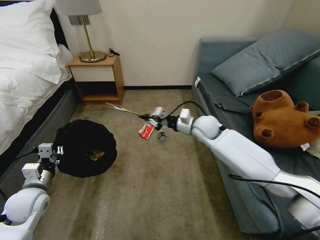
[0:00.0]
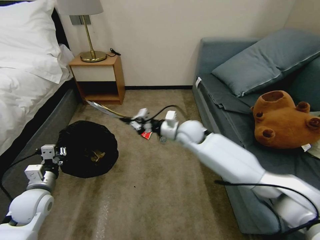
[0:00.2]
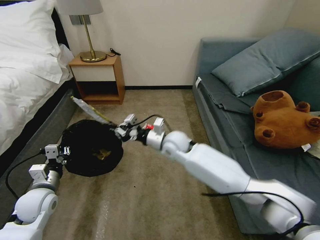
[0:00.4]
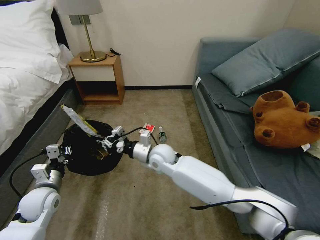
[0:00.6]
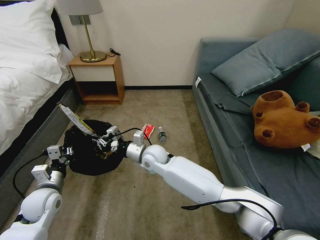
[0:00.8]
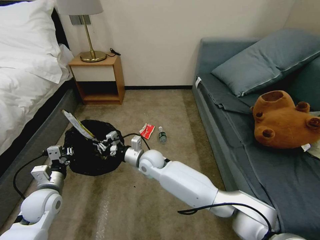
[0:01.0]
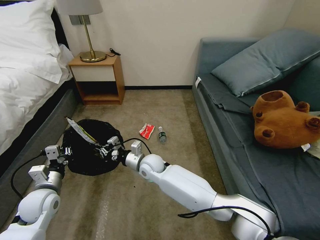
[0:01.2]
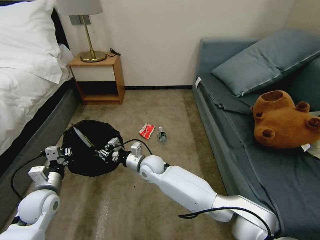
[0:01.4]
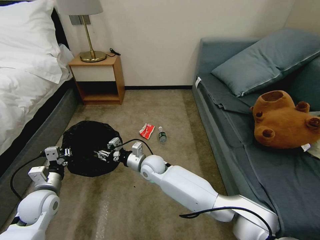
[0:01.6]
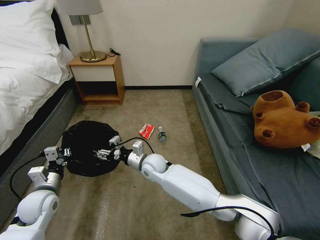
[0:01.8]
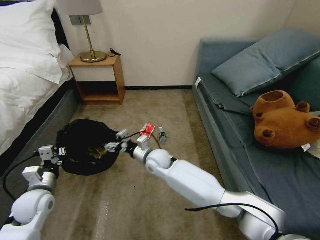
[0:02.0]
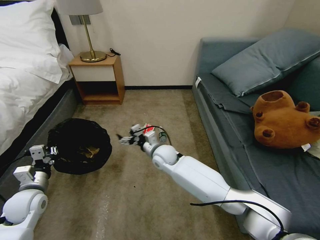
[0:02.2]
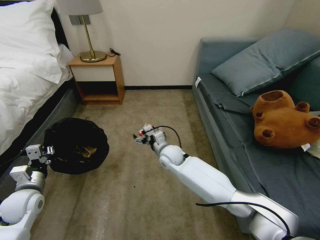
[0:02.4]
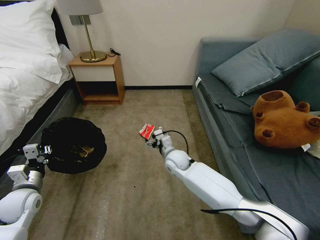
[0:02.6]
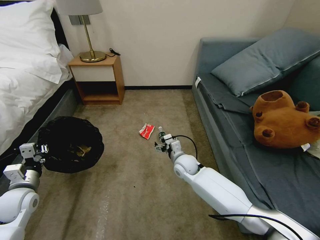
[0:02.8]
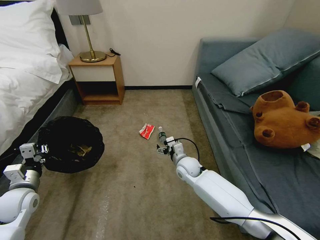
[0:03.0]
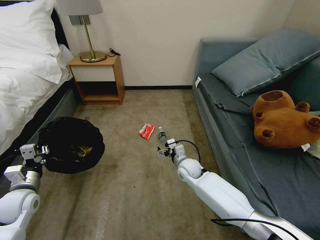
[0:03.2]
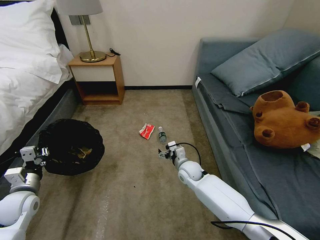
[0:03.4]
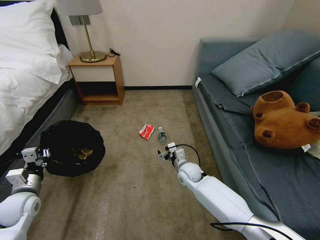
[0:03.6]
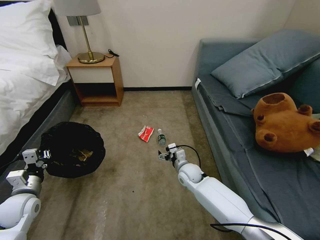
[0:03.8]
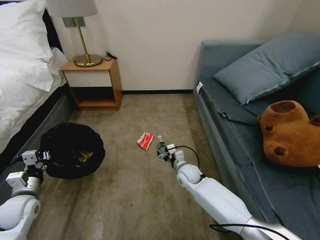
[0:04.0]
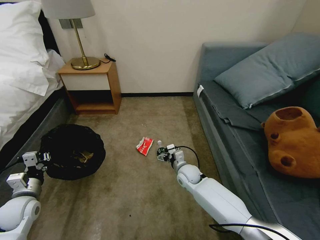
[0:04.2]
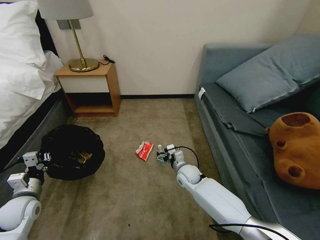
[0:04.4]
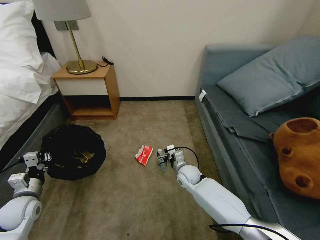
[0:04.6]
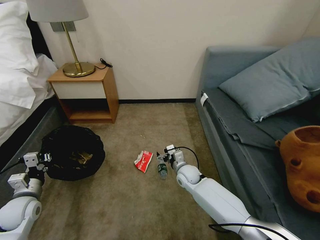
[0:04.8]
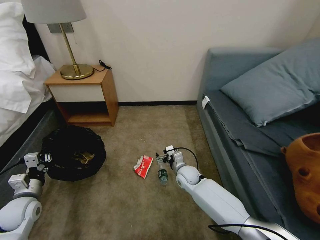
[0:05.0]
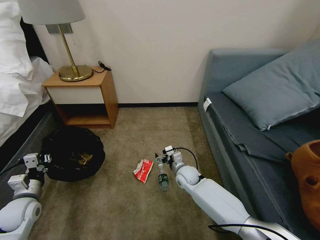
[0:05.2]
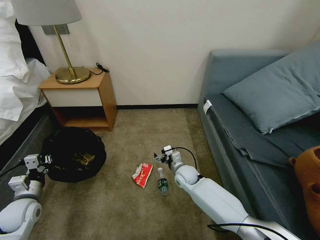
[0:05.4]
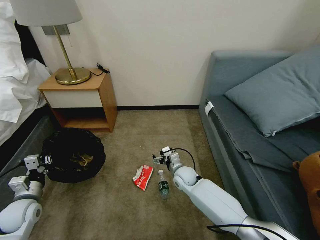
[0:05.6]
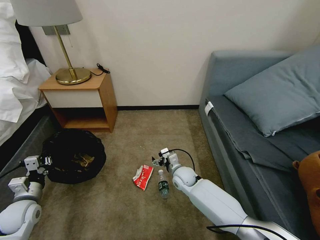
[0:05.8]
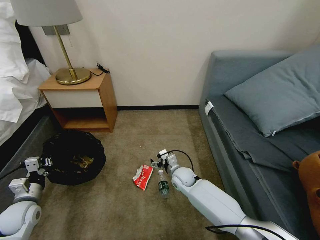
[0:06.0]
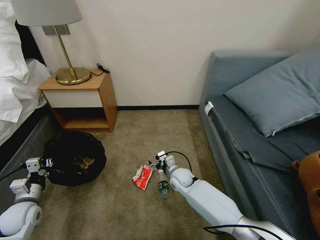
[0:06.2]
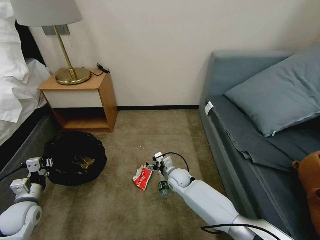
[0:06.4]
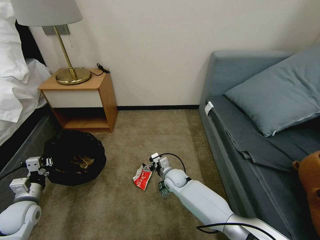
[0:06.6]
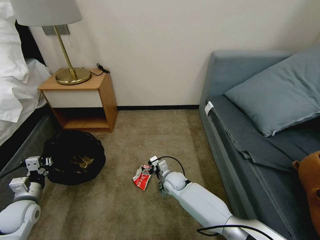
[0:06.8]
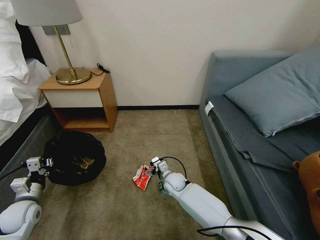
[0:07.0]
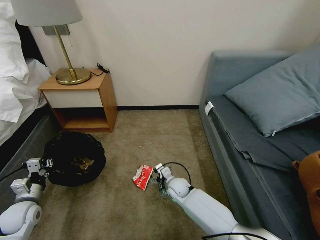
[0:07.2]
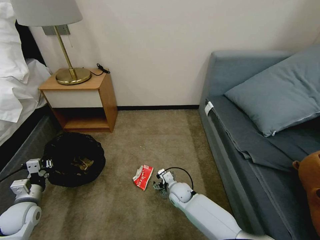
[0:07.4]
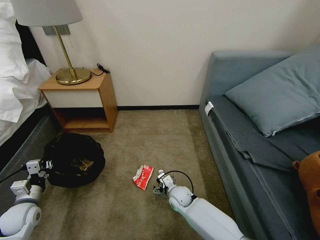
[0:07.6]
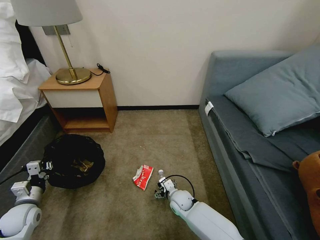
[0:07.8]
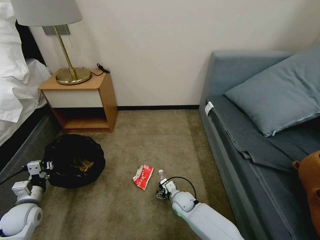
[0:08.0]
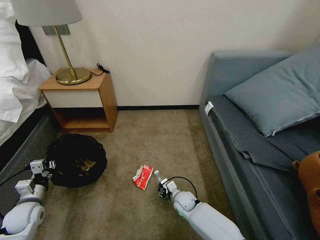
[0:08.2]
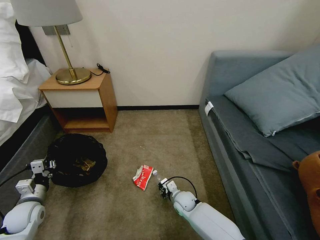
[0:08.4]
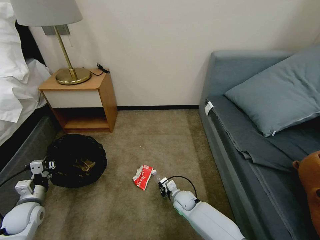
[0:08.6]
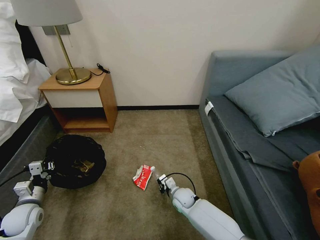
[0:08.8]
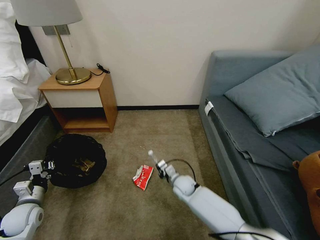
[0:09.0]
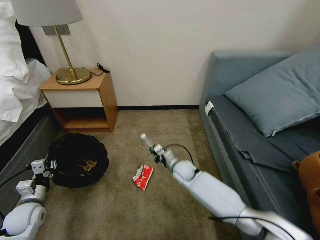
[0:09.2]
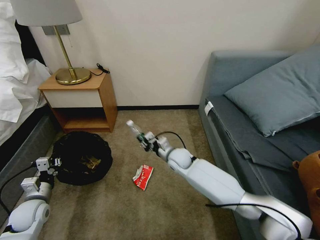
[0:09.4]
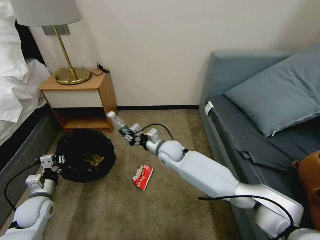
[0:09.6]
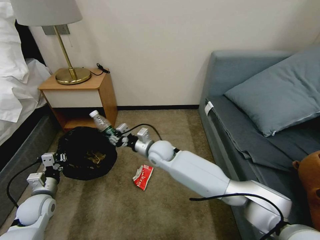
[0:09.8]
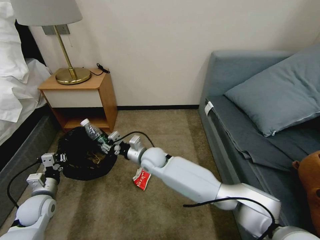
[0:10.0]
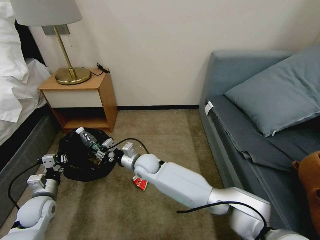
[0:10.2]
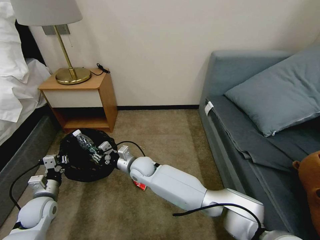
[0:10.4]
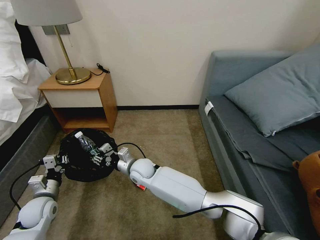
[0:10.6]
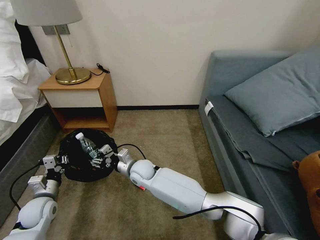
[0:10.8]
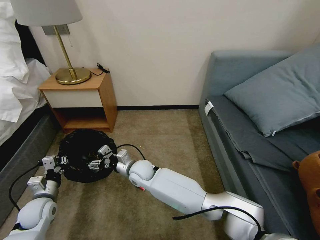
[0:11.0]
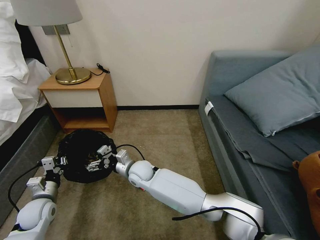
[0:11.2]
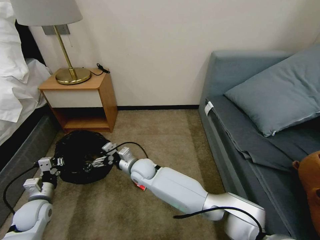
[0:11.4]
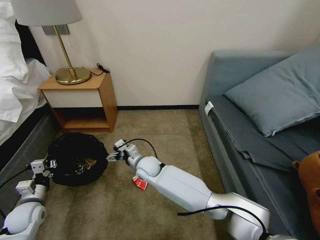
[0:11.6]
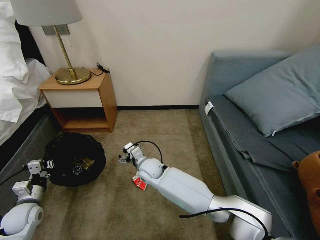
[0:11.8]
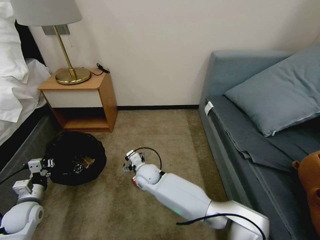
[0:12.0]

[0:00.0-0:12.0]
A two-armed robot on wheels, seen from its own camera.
Task of the whole recording: Pick up the trash bin, then pick up the garbage on the floor and place it into the trash bin.
0:00.0 to 0:01.6: The right gripper heads to the left, downward and backward, covering about 25 cm.
0:01.6 to 0:03.0: The right gripper shifts some 15 cm to the right, and opens its fingers; the left gripper goes about 5 cm to the left.
0:06.0 to 0:07.6: The right gripper shifts about 10 cm backward and downward.
0:07.6 to 0:09.0: The right gripper closes up.
0:09.0 to 0:10.4: The right gripper is displaced to the left and upward by some 20 cm.
0:10.4 to 0:12.0: The right gripper opens up.

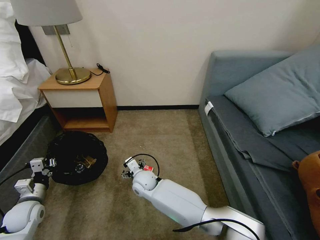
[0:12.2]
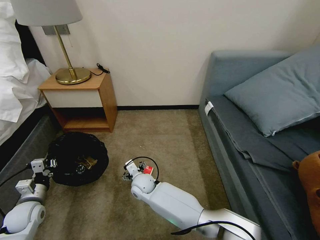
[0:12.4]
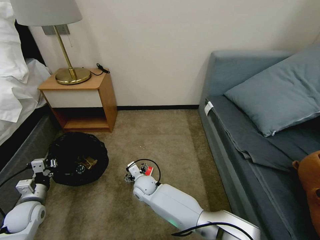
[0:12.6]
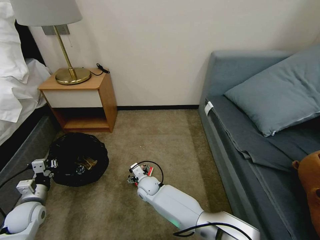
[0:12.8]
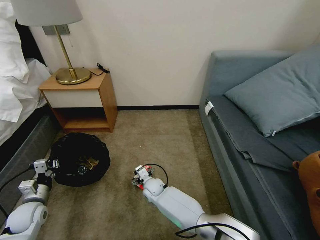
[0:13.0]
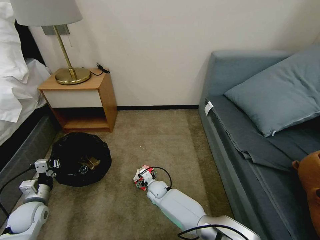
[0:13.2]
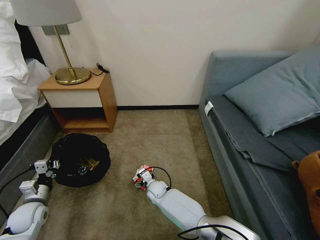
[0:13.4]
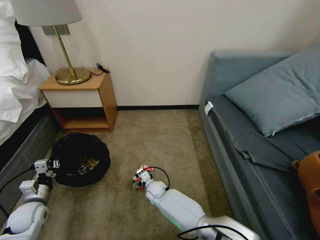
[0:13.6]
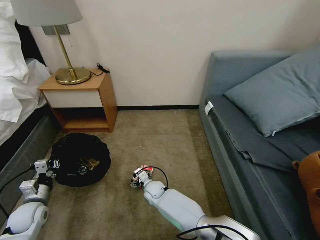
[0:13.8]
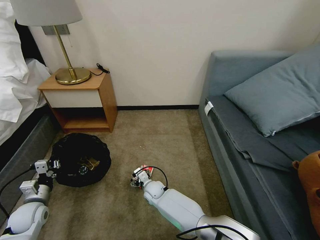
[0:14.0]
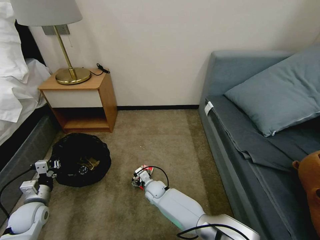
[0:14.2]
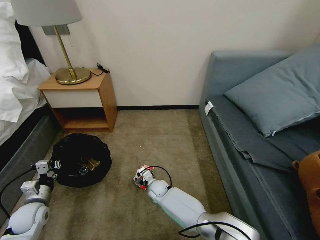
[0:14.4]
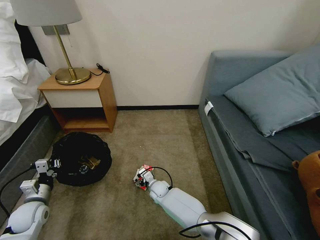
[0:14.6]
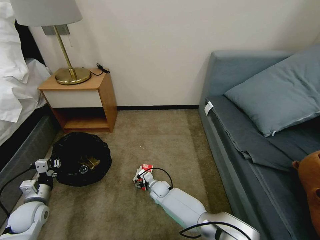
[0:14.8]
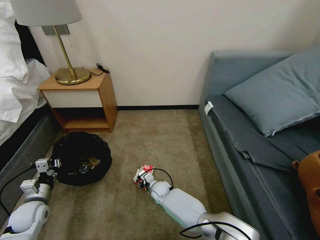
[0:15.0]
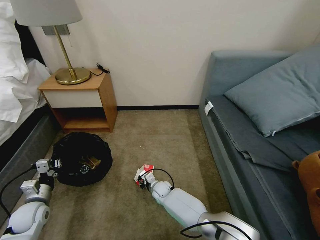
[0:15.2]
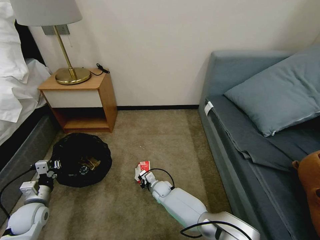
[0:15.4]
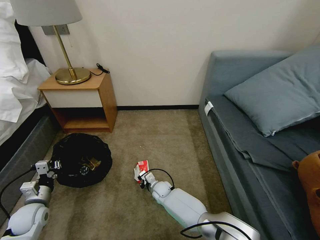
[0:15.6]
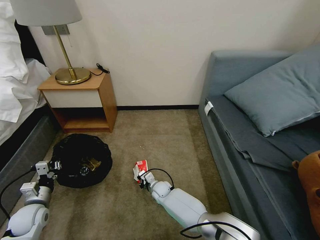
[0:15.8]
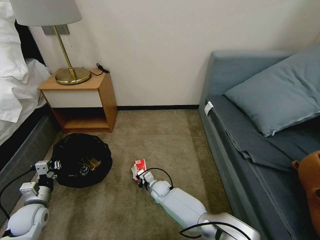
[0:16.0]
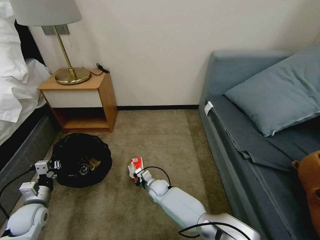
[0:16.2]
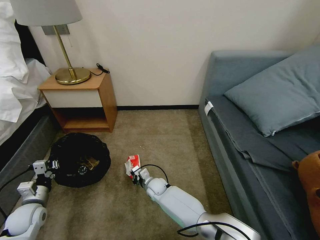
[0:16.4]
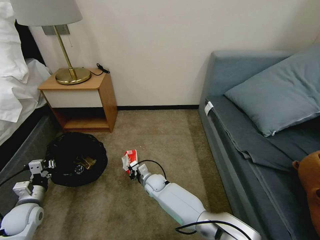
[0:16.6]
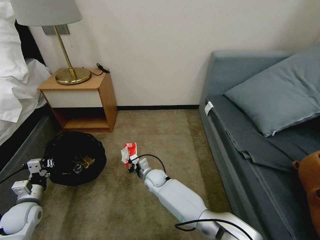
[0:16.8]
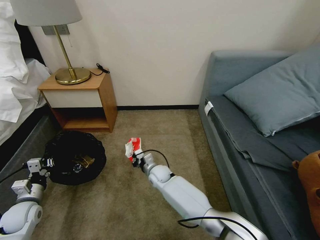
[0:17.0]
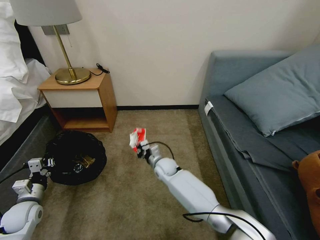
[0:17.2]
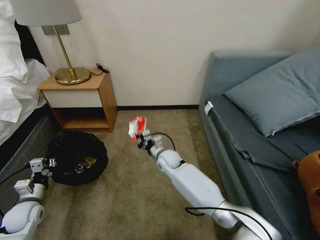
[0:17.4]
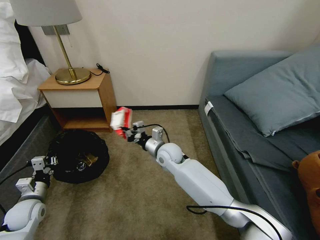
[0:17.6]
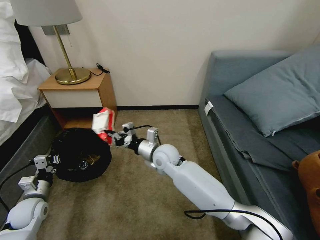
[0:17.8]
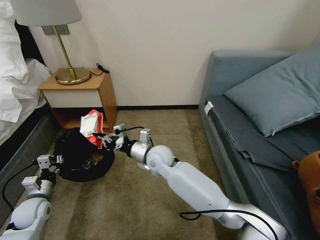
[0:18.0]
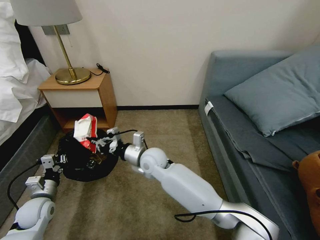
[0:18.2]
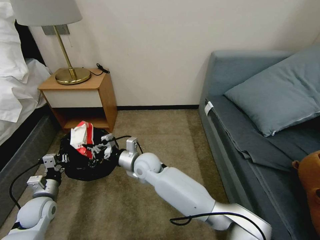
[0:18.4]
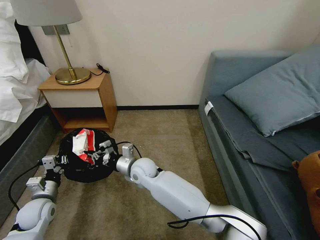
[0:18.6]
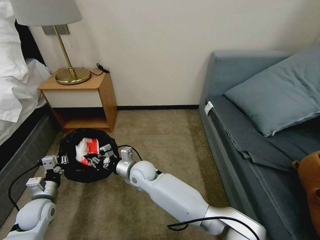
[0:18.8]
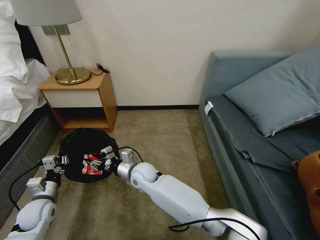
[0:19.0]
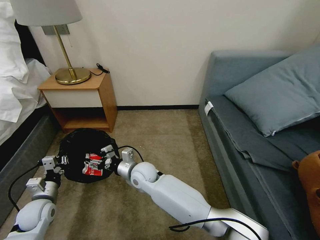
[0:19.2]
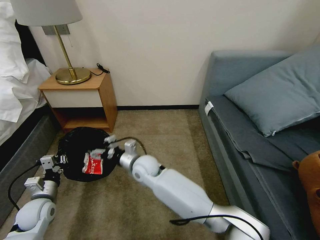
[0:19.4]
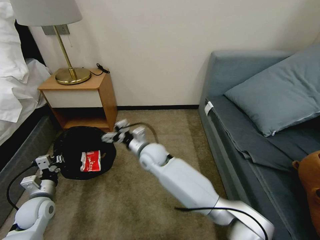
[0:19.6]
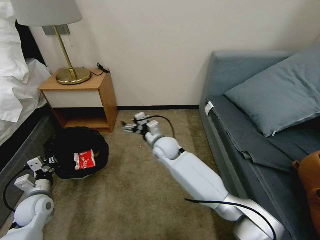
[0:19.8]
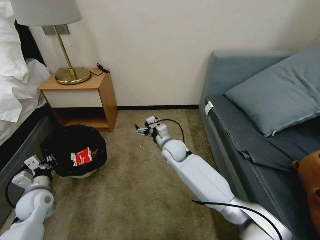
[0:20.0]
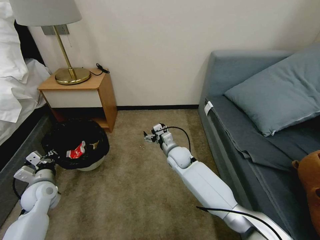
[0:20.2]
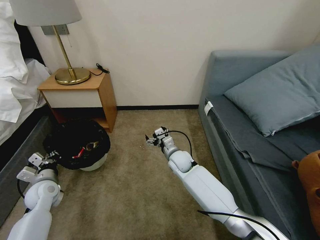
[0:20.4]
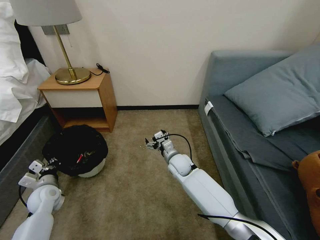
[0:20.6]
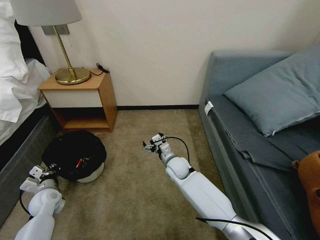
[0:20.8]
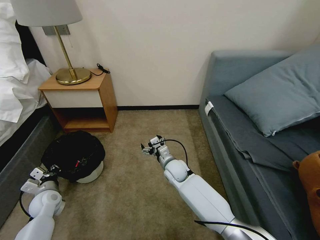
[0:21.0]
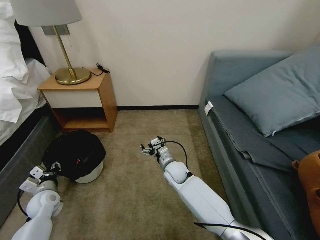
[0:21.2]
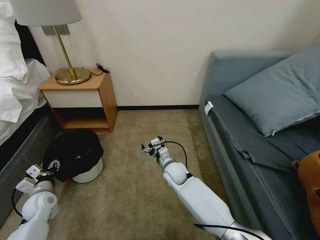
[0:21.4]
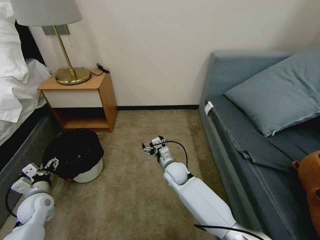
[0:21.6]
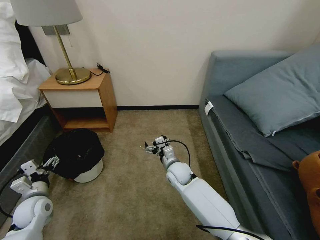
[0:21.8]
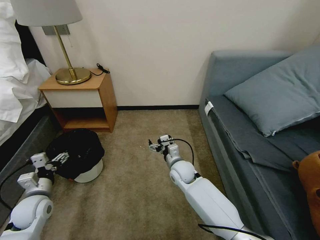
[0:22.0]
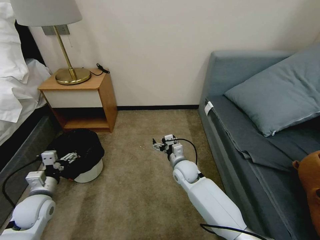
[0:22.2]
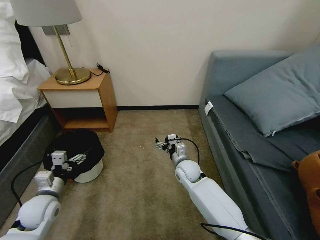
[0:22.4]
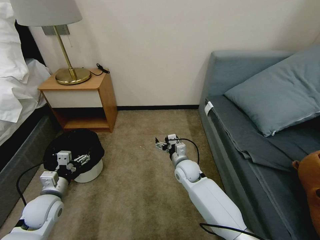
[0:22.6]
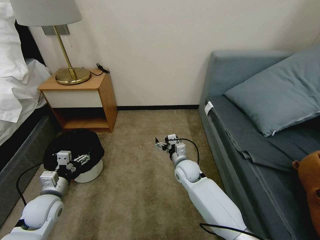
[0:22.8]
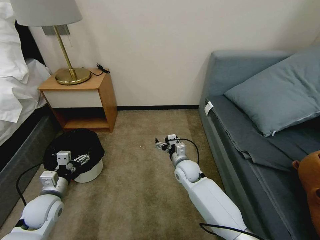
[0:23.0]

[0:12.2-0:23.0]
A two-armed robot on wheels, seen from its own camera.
Task of the whole recording: Pick up the trash bin, then pick up the garbage on the floor and place it into the trash bin.
0:12.2 to 0:13.8: The right gripper heads downward, covering approximately 10 cm.
0:13.8 to 0:15.2: The right gripper ends up some 5 cm from where it was, and closes.
0:15.2 to 0:16.8: The right gripper travels upward by about 5 cm.
0:16.8 to 0:18.4: The right gripper heads upward, covering about 15 cm.
0:18.4 to 0:20.0: The right gripper moves to the right and forward, some 15 cm, and opens.
0:20.0 to 0:21.4: The right gripper shifts roughly 10 cm downward and backward, while the left gripper opens up.
0:21.4 to 0:23.0: The right gripper changes place by roughly 5 cm, while the left gripper heads to the right and upward, covering some 10 cm, and opens its fingers.
